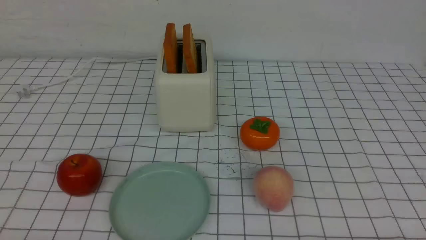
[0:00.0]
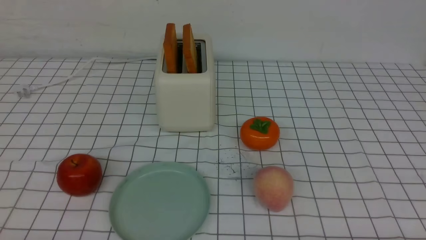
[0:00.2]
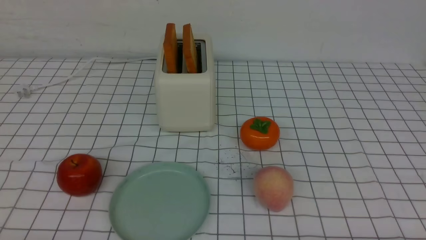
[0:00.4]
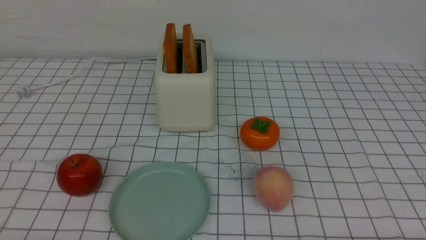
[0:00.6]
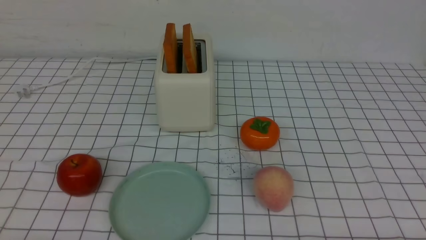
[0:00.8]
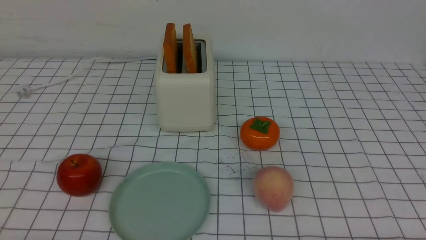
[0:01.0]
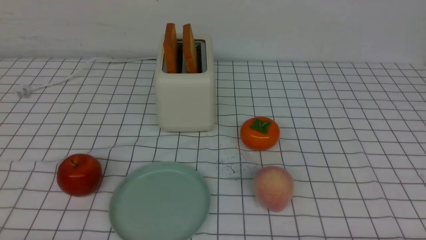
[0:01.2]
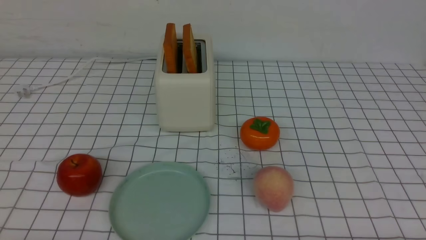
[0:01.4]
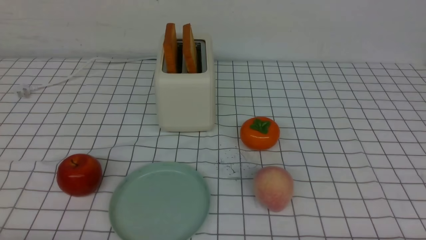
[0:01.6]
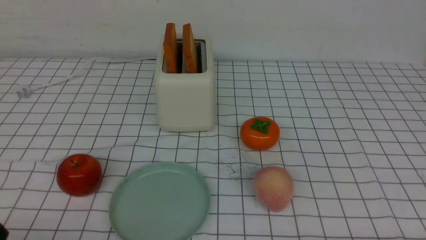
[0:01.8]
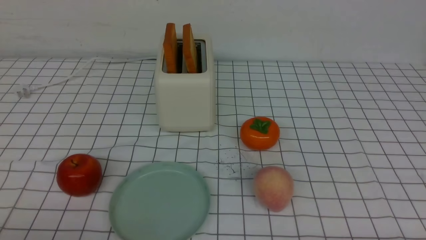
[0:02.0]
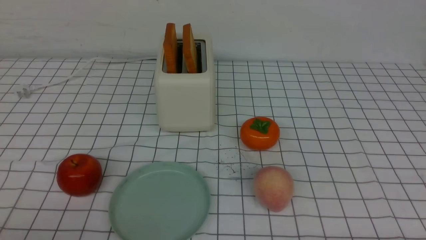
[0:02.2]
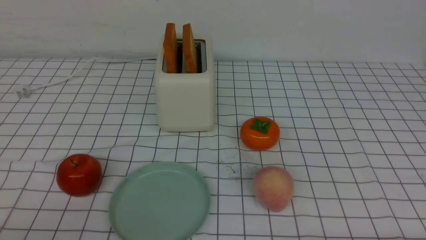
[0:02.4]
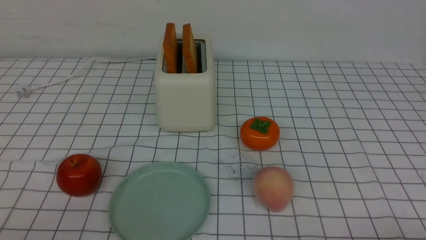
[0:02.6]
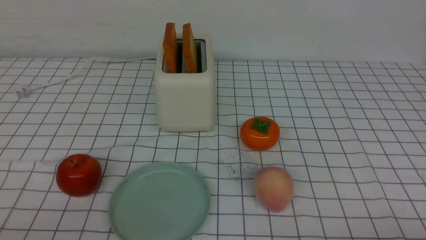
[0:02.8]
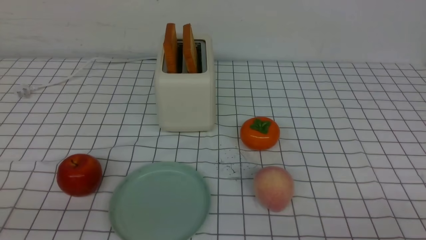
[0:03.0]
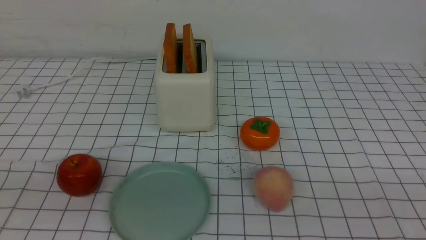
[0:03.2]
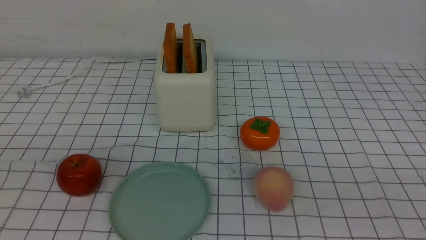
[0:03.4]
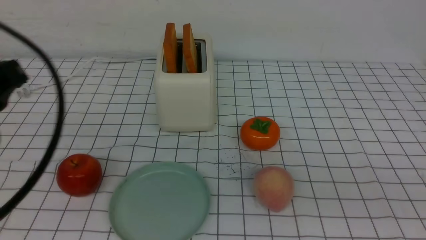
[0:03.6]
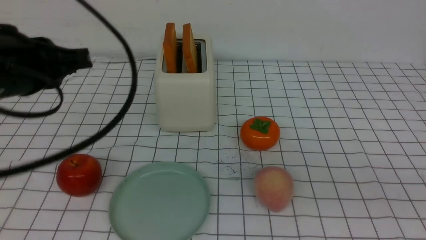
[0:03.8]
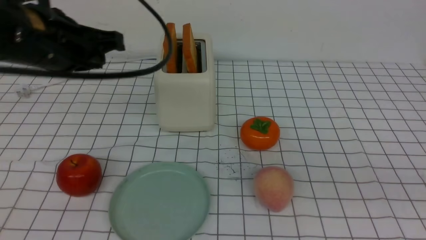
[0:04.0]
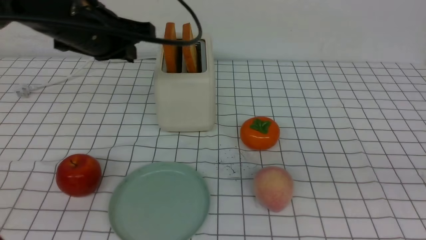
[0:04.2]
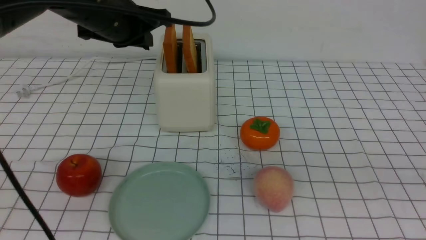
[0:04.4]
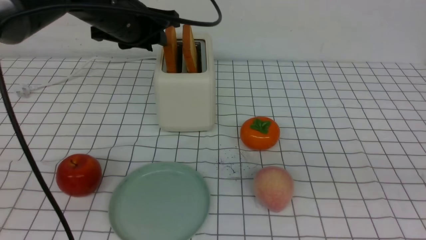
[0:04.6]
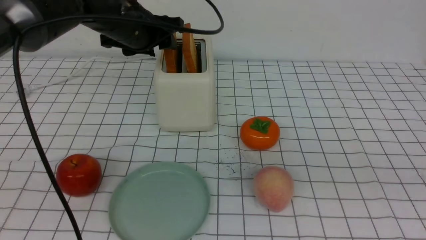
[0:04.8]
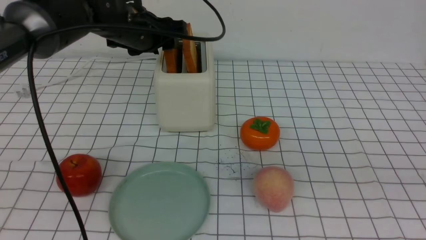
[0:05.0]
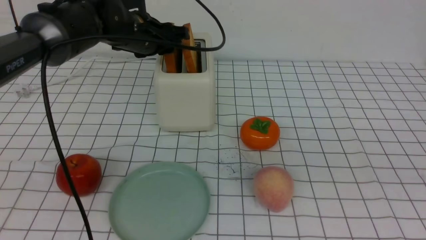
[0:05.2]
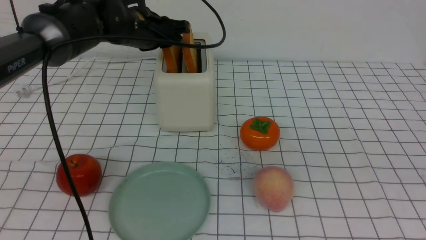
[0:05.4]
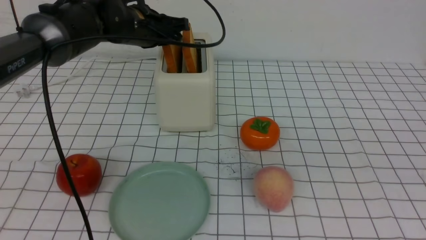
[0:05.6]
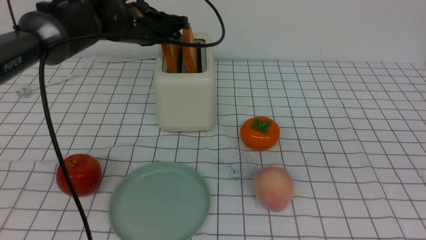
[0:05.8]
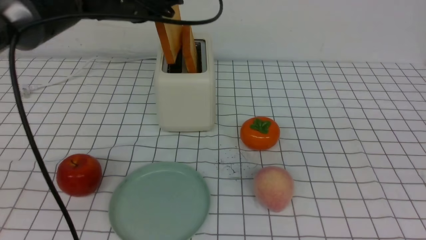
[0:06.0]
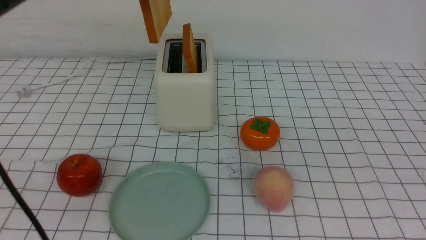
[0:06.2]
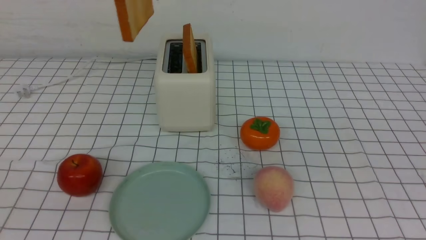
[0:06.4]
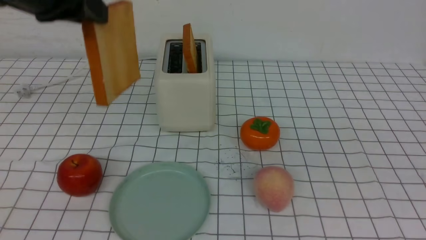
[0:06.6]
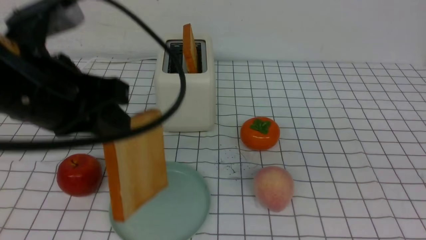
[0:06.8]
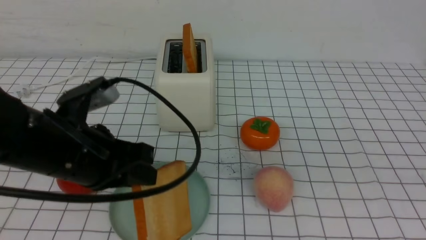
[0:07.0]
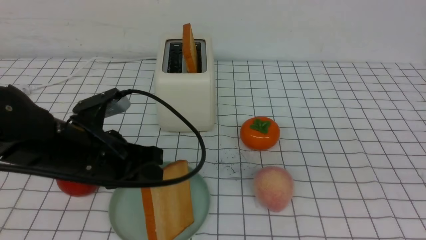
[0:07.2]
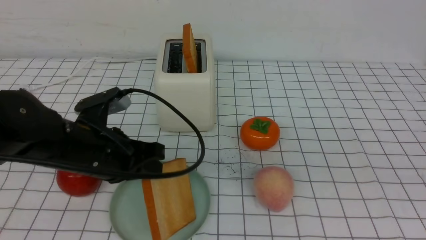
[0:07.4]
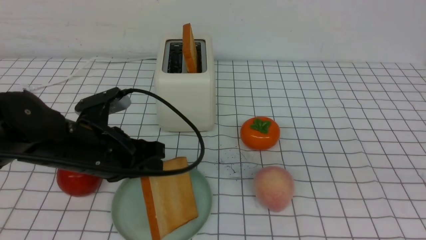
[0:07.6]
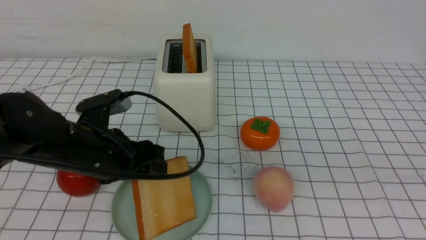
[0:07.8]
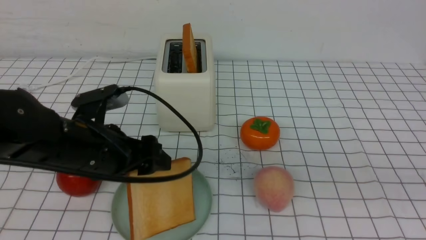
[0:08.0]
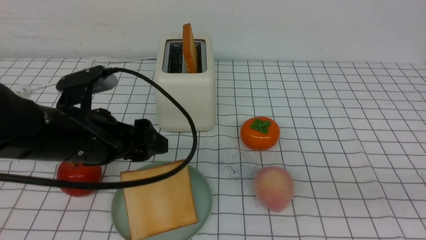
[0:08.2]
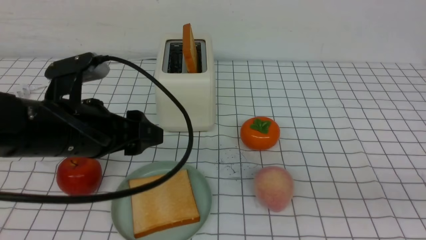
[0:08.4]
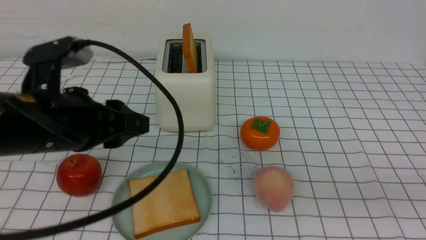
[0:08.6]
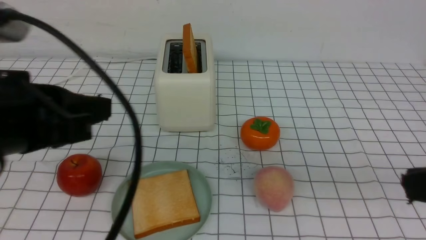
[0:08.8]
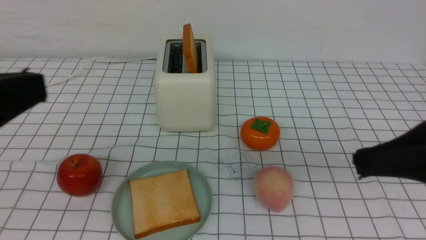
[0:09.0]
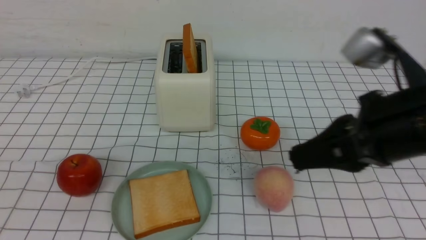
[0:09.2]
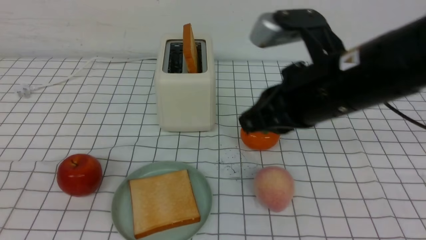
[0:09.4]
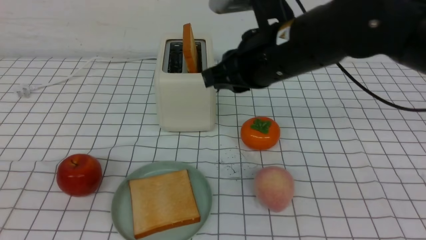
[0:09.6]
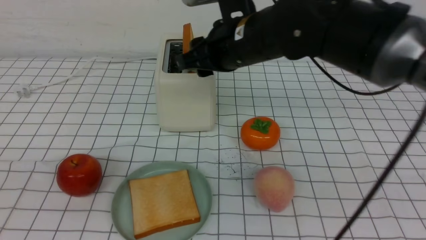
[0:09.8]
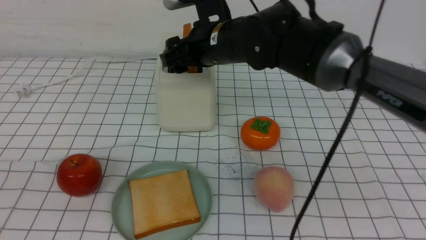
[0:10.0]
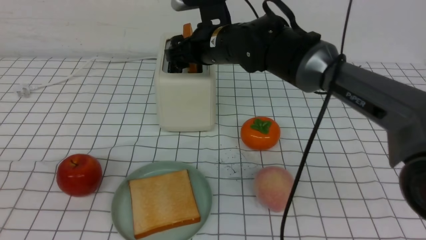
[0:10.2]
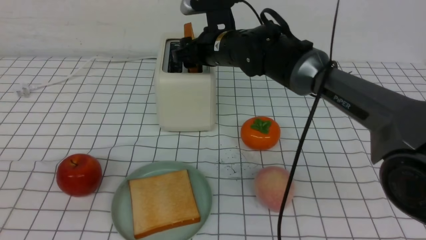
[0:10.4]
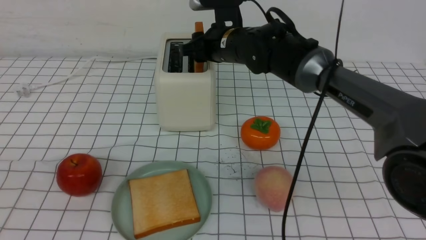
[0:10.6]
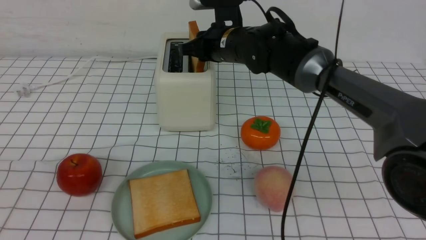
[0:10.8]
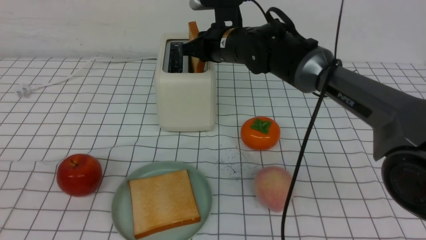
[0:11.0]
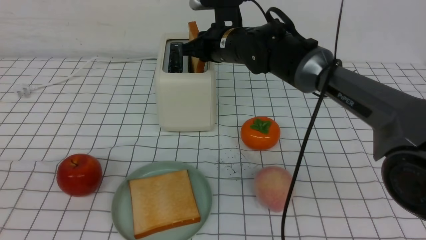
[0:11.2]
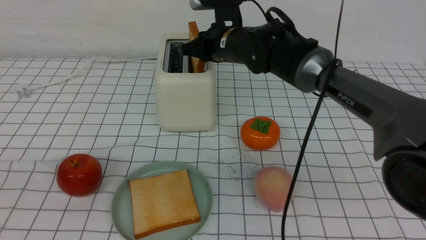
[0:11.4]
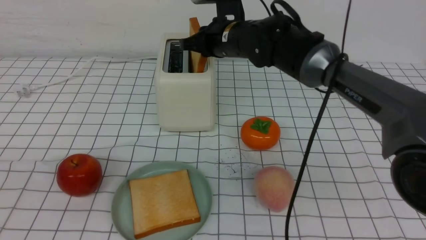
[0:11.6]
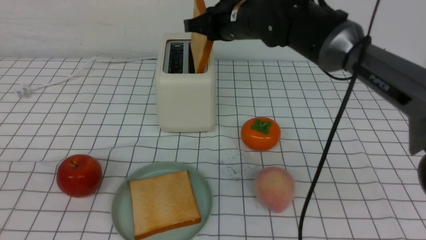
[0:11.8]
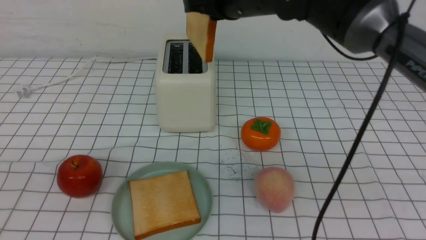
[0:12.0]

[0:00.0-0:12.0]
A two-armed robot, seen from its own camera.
Task of the whole recording: take toasted bread from bread machine on white checkered table place on plate.
Step, 0:00.0 to 0:05.8: use the left arm to take out a slice of bread.
Step, 0:06.0 to 0:08.2: use the left arm to put a slice of bread into the empty plate.
Step, 0:08.4 to 0:11.8: use the right arm to take out a slice of bread.
0:03.0 to 0:04.4: The right gripper heads upward, covering roughly 15 cm. The left gripper moves forward, some 35 cm.
0:04.4 to 0:06.0: The left gripper opens and closes again.
0:06.0 to 0:07.6: The left gripper travels backward and downward by some 20 cm.
0:07.6 to 0:09.0: The right gripper is displaced forward by some 5 cm. Meanwhile the left gripper heads backward and upward, covering roughly 25 cm, and closes its fingers.
0:09.0 to 0:10.4: The right gripper shifts approximately 35 cm forward and to the left, and opens up. The left gripper moves some 5 cm.
0:10.4 to 0:12.0: The right gripper shifts approximately 10 cm upward and backward, and closes its fingers.

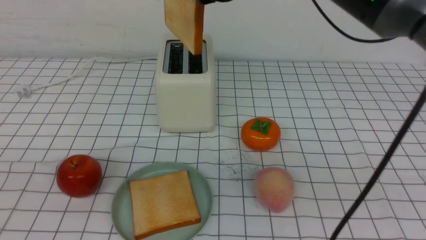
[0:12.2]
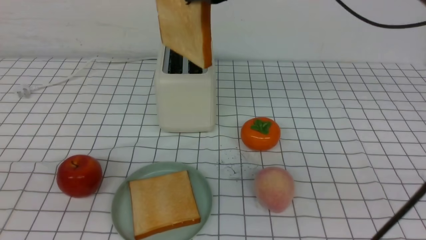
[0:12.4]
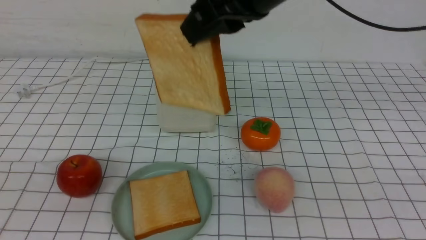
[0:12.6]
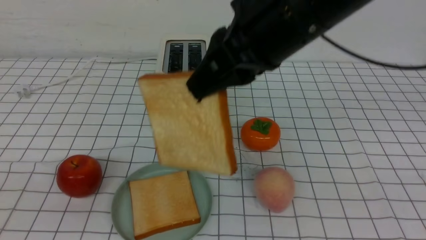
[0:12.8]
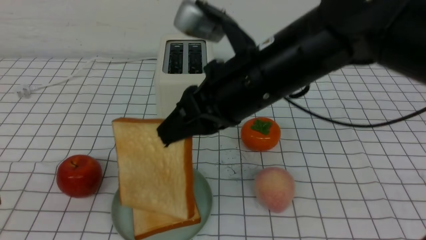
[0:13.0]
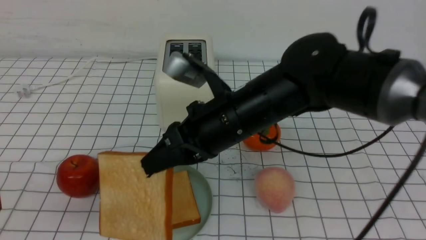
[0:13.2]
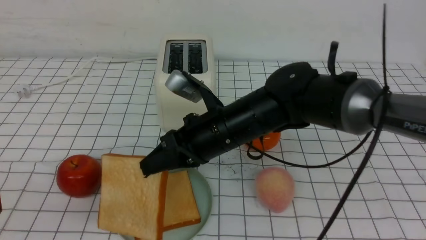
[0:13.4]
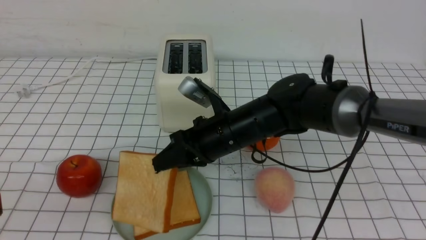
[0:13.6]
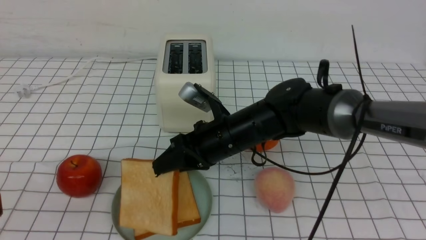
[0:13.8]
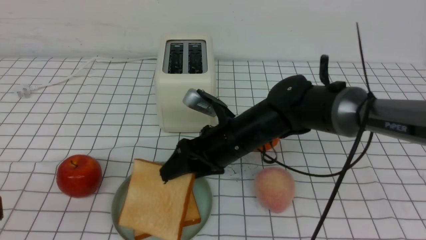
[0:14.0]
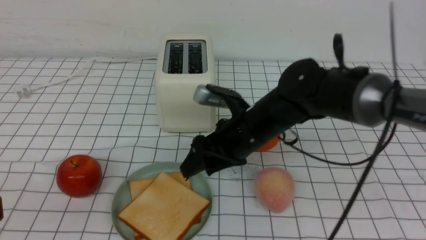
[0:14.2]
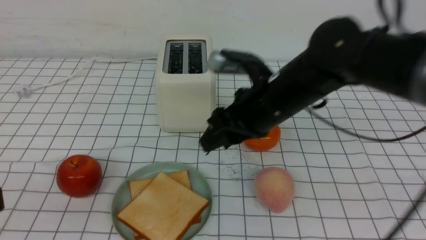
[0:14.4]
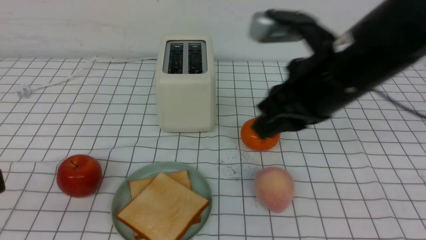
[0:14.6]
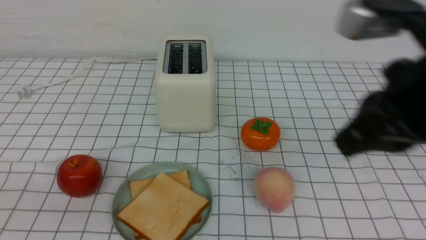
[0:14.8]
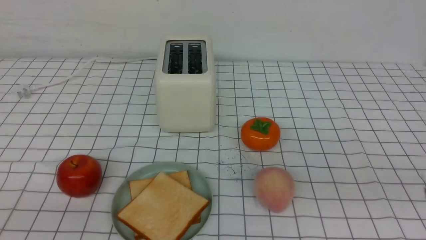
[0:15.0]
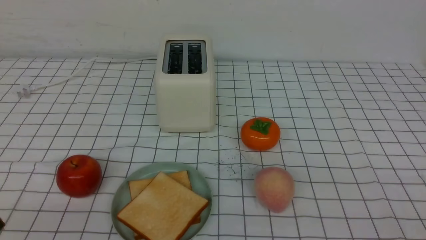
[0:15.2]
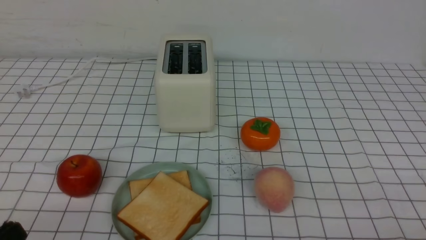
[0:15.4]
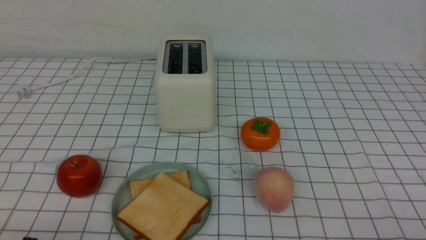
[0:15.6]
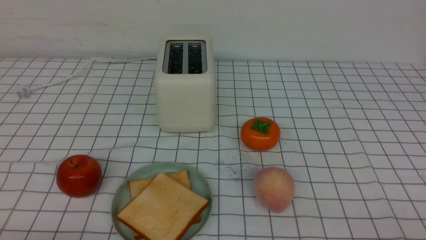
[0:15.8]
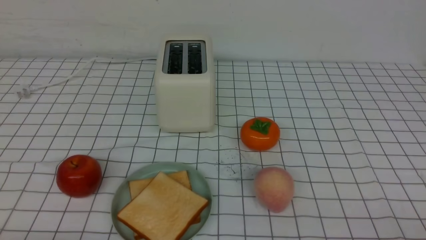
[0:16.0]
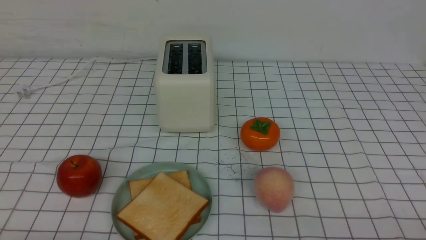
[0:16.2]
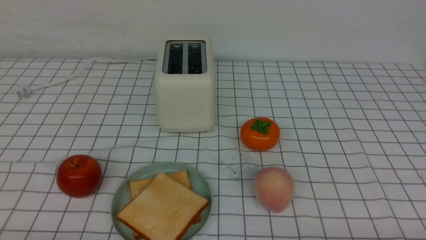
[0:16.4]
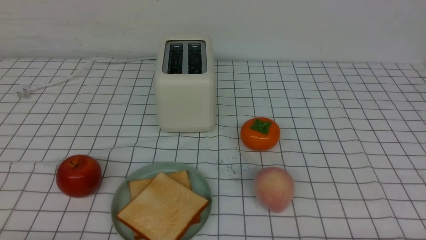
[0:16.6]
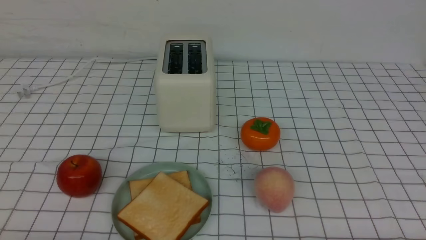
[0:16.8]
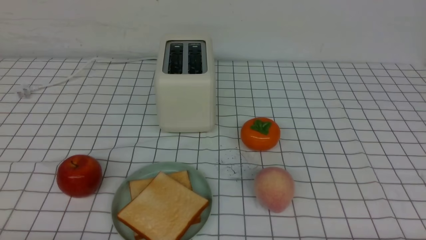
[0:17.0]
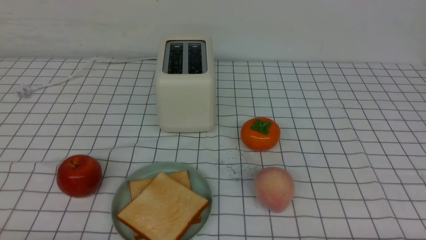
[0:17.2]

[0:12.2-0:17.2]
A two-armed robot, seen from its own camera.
Task of the whole recording: take toasted bread from bread machine on white checkered table place on plate.
Step, 0:12.2 to 0:14.2: use the right arm to put a slice of bread into the plate.
0:12.2 to 0:13.8: The right gripper shifts roughly 20 cm downward, and opens its fingers.
0:13.8 to 0:15.6: The right gripper is displaced backward and to the right by about 40 cm, and closes up; the left gripper moves downward, roughly 15 cm.
